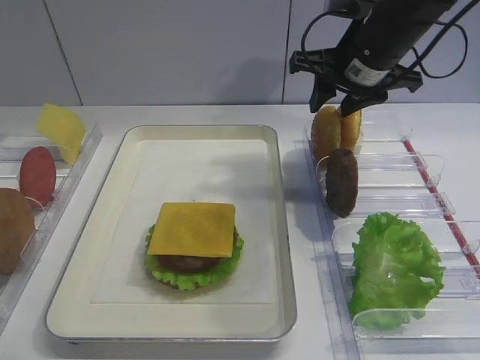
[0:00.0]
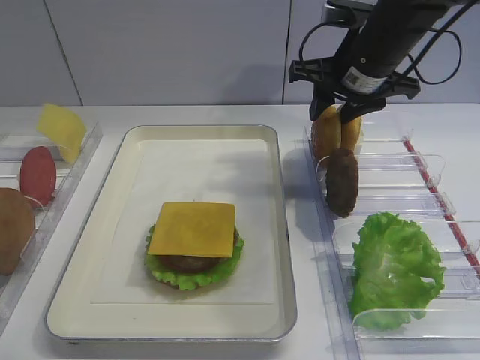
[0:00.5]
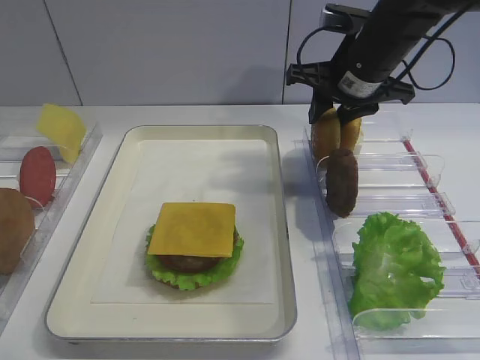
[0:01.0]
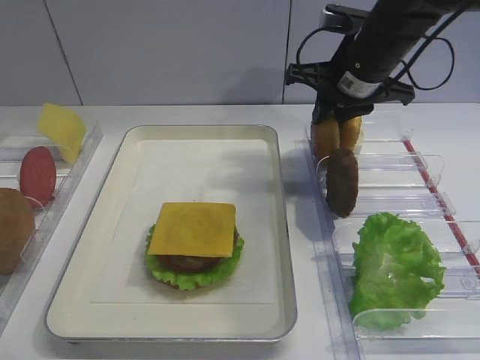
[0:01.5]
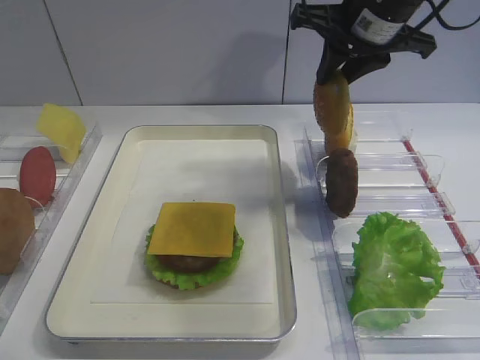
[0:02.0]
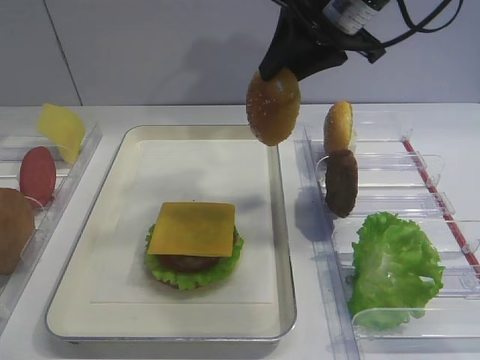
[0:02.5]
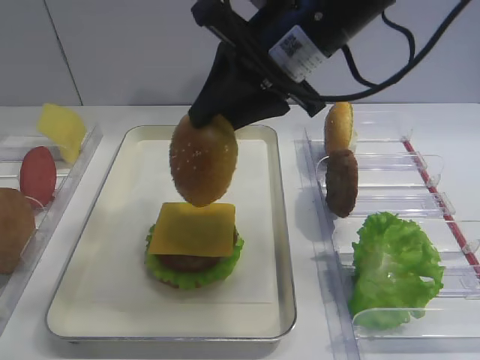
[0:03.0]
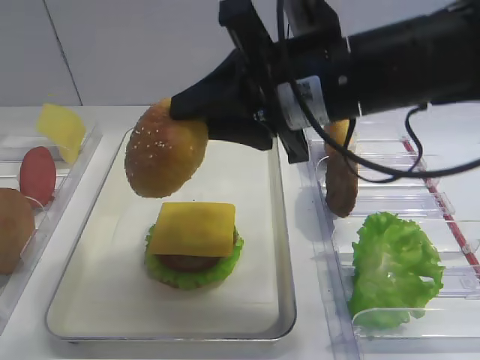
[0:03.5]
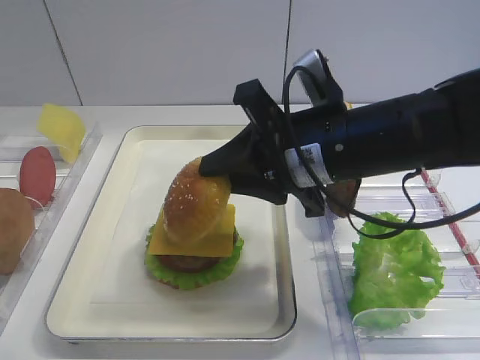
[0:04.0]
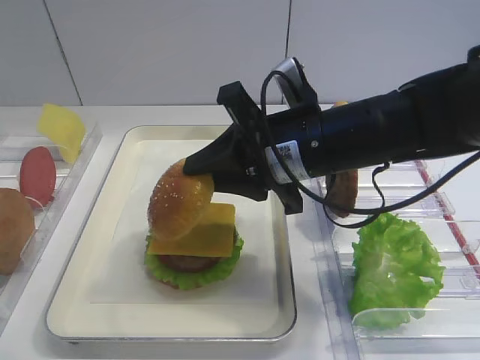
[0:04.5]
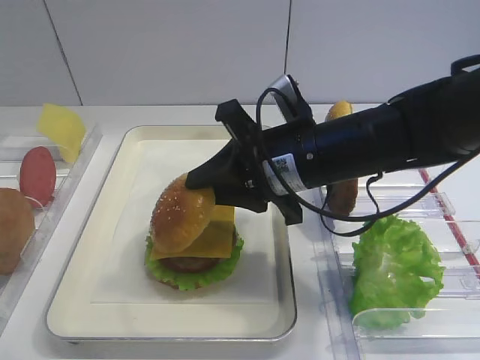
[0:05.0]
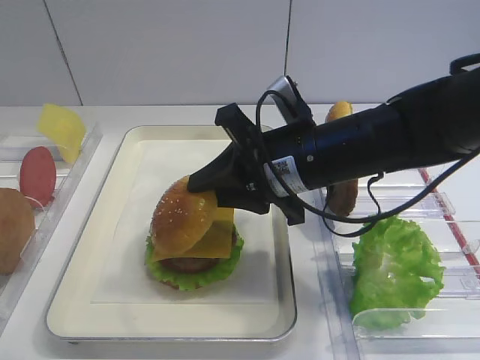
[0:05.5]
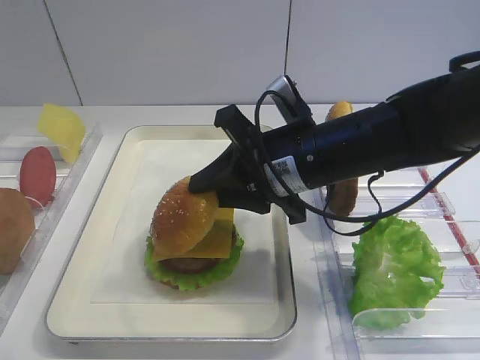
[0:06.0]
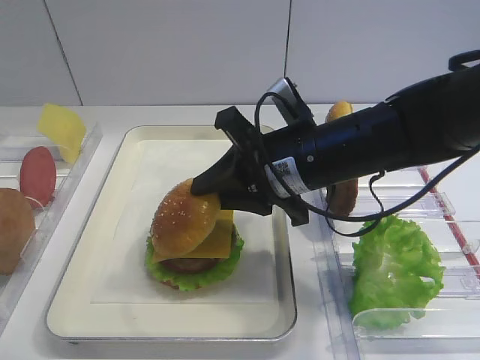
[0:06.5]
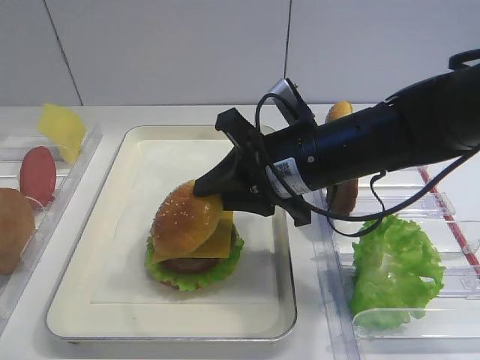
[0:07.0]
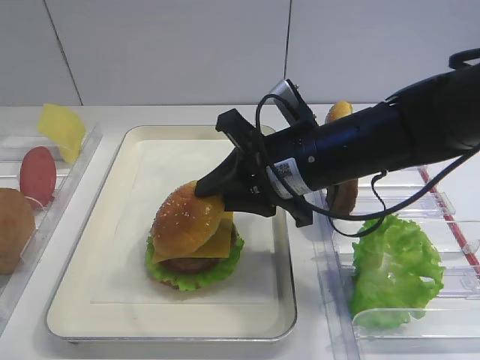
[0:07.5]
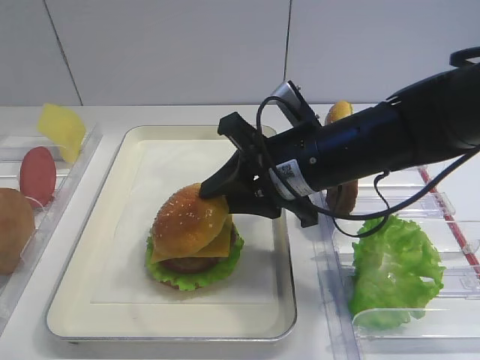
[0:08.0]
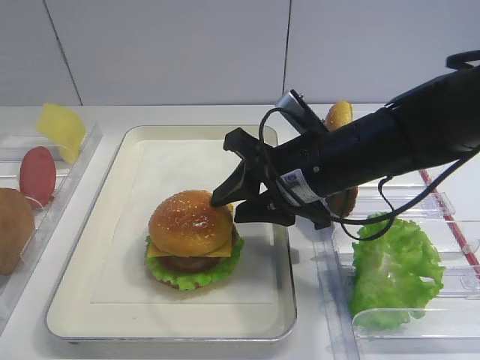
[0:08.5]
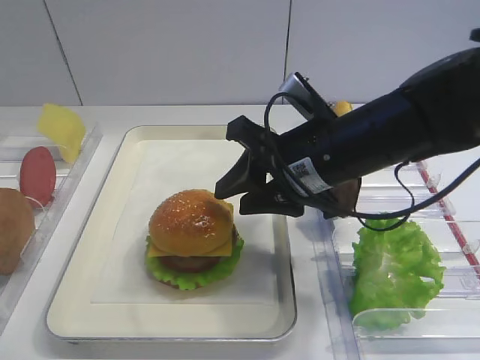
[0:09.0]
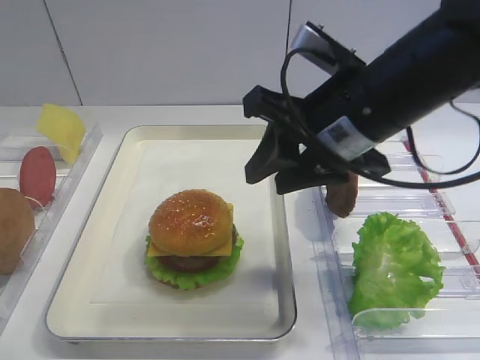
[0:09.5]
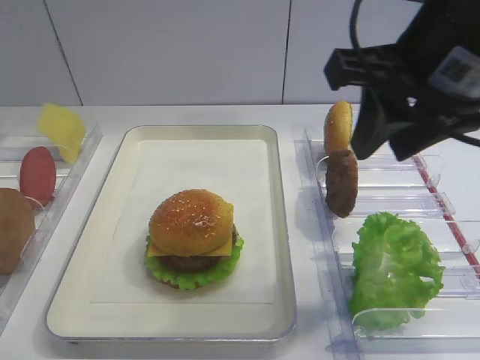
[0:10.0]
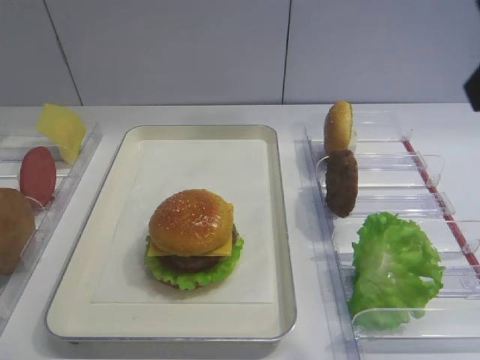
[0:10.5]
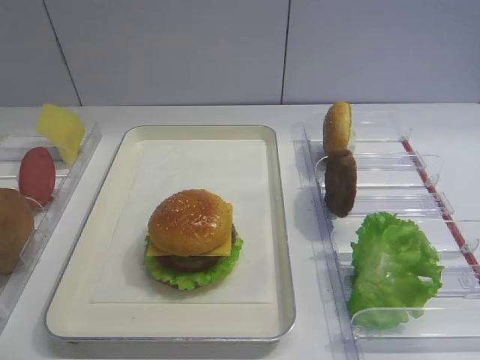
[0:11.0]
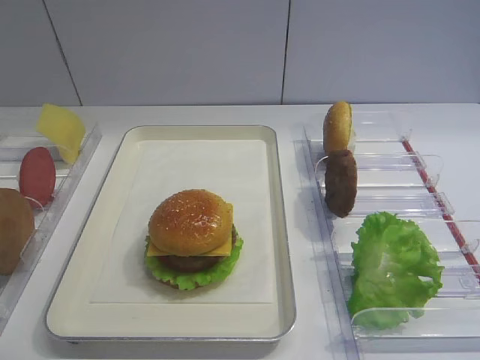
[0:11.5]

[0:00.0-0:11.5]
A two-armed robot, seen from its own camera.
Step, 0:02.0 to 0:09.0: Place the hamburger lid on the cheese slice with the right gripper.
0:00.0 to 0:02.0: The right gripper heads upward, covering roughly 5 cm, and closes up.
0:02.0 to 0:04.0: The right gripper travels backward, downward and to the left by approximately 15 cm.
0:04.0 to 0:06.0: There are only small adjustments of the grippers.
0:06.0 to 0:07.5: Both grippers stay about where they are.
0:07.5 to 0:09.5: The right gripper heads upward, covering roughly 5 cm, and opens up.
0:09.5 to 0:11.5: The right gripper goes about 30 cm backward and to the right.

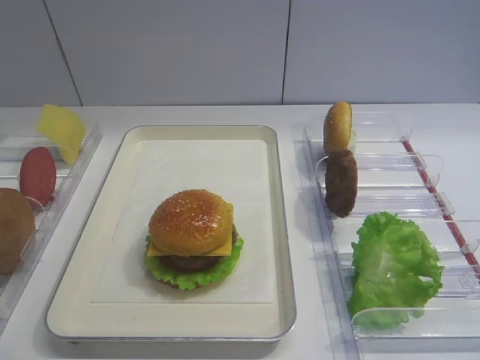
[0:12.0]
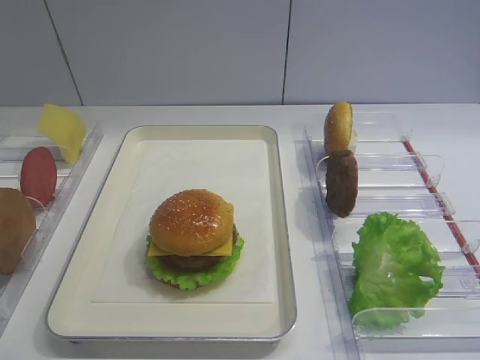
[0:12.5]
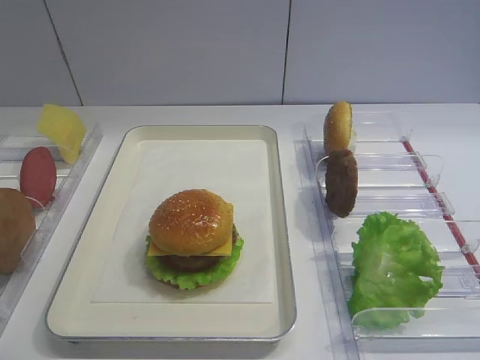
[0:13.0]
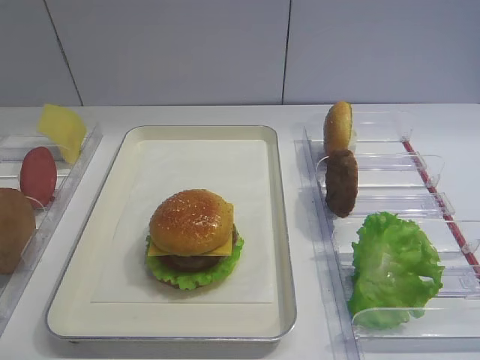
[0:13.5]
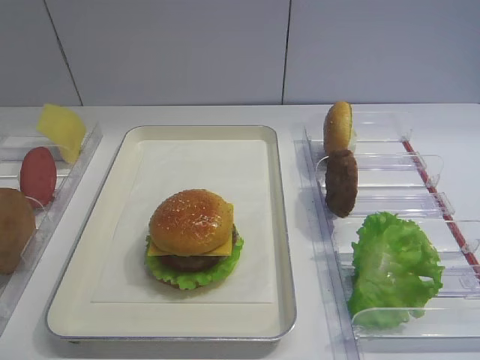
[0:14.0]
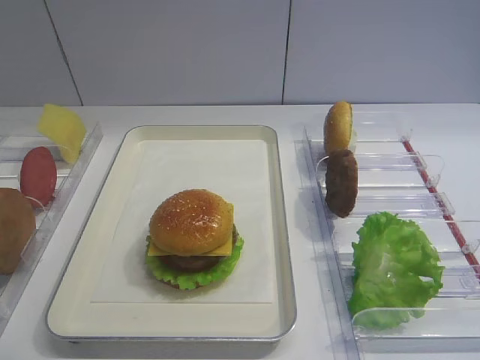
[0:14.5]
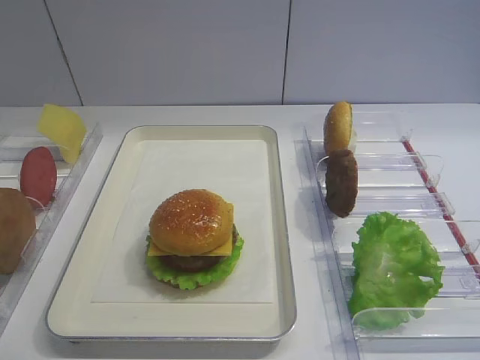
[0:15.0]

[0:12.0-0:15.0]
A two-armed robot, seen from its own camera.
0:12.0 to 0:13.5: Both grippers stay about where they are.

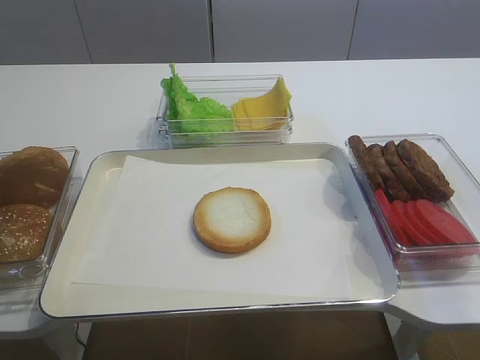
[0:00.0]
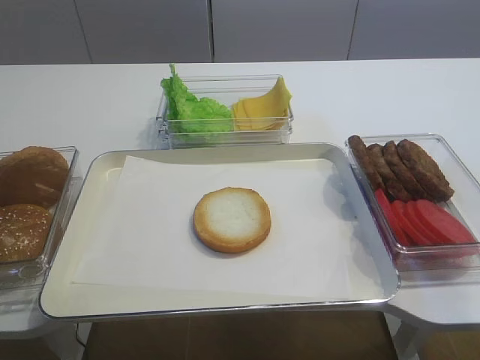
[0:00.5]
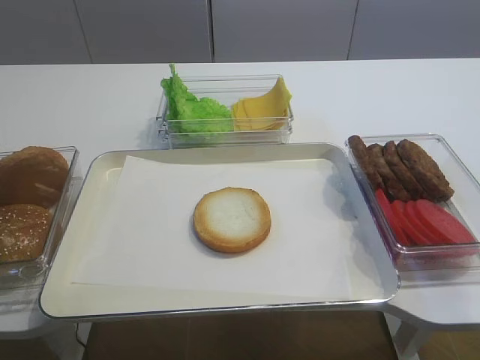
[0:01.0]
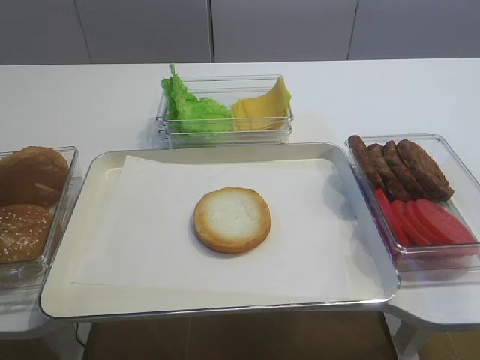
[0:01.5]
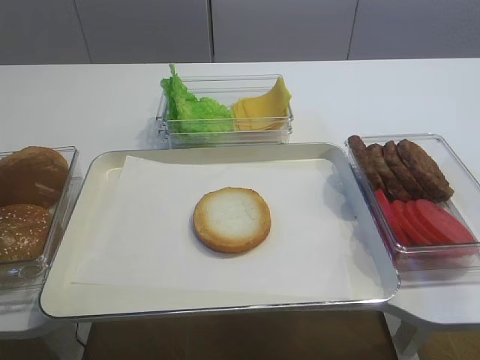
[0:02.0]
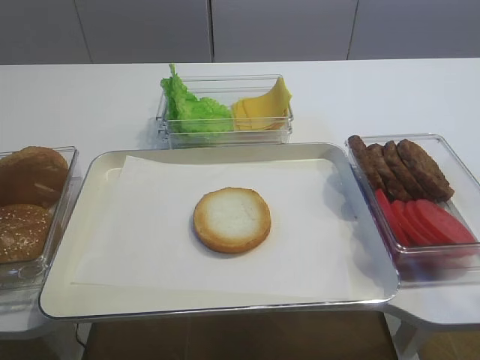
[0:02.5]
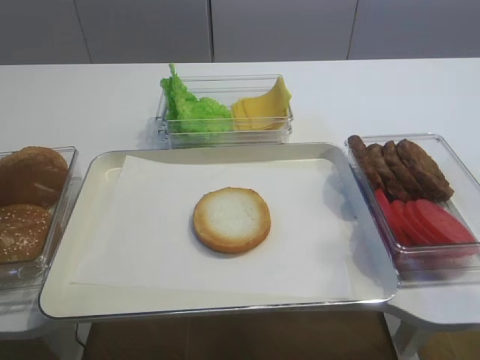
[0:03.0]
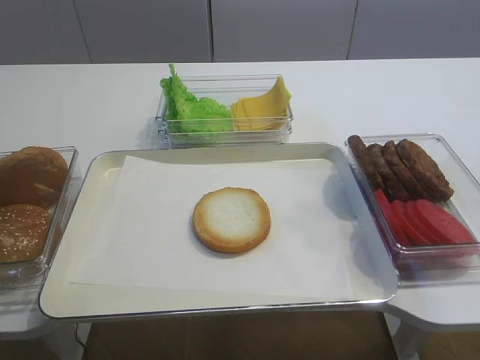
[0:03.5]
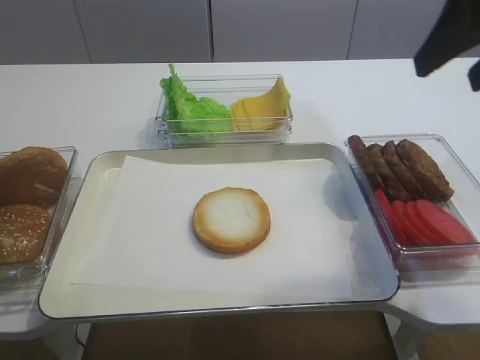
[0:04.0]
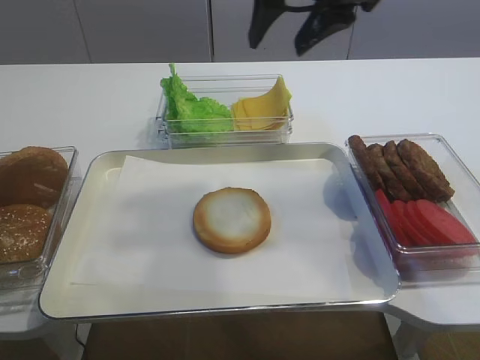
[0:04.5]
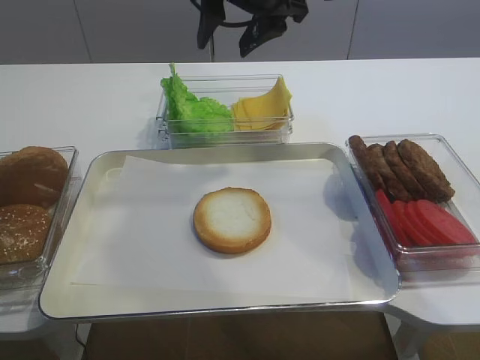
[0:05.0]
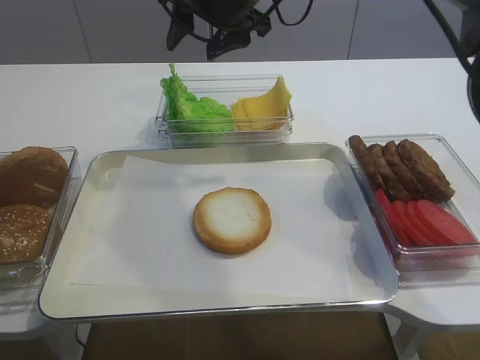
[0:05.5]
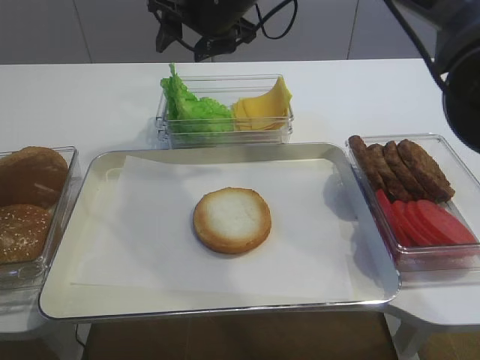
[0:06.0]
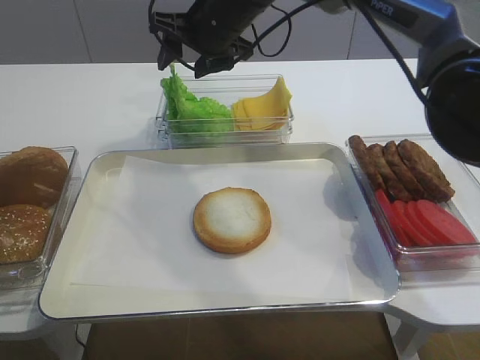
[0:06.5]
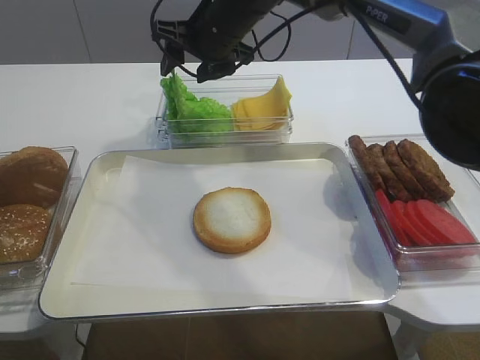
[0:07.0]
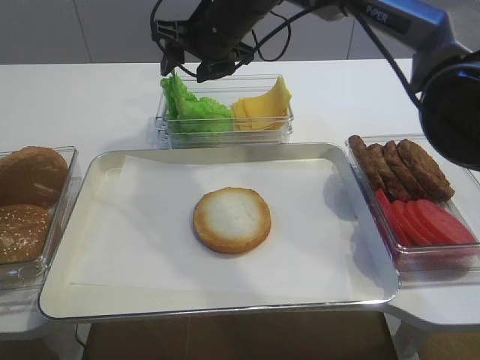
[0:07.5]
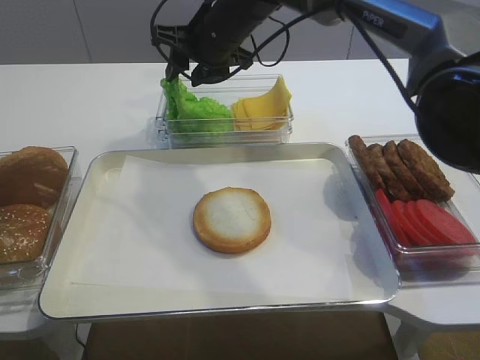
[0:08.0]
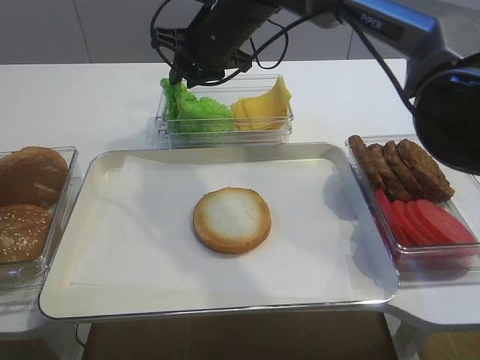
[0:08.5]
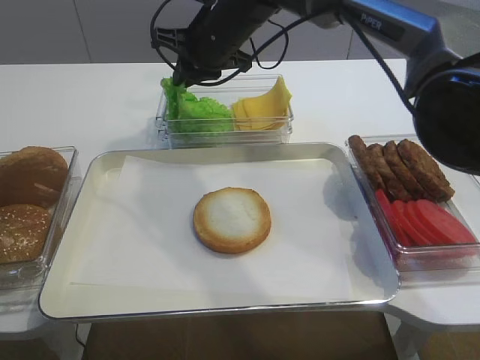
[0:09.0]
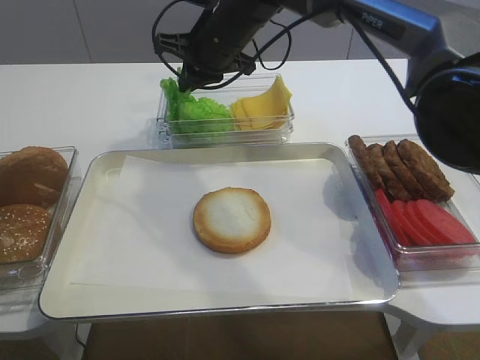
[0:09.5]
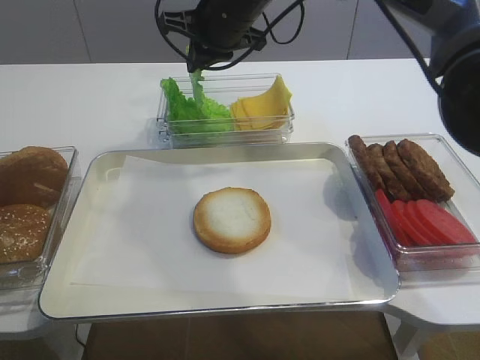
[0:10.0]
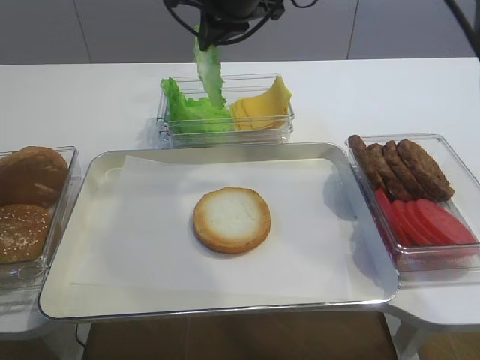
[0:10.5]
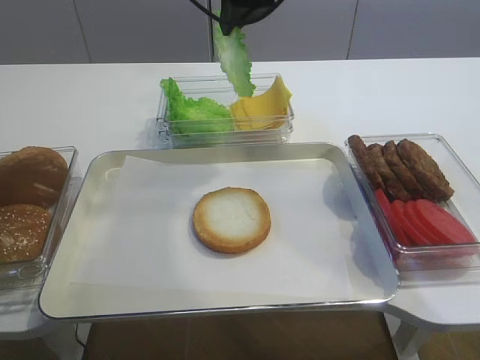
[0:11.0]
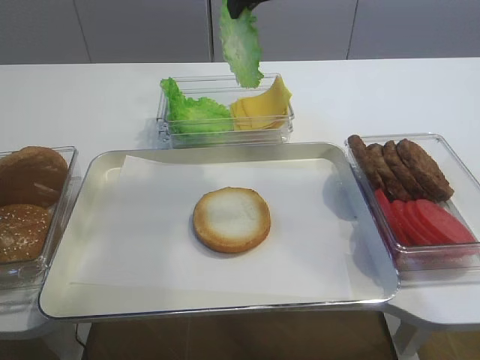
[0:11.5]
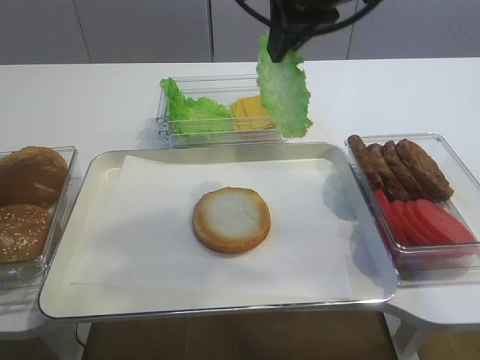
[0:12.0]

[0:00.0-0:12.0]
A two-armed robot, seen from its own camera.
Step, 0:00.0 to 0:10.0: Pick up the lettuce leaf with the right gripper.
0:02.0 to 0:04.0: The right gripper goes approximately 25 cm forward and upward.
0:04.0 to 0:06.0: The right gripper is displaced to the left and forward by some 30 cm.
0:06.0 to 0:08.0: The grippers stay close to where they were, moving slightly.
0:08.0 to 0:10.0: The right gripper closes.
0:10.0 to 0:12.0: The right gripper is displaced backward, upward and to the right by roughly 15 cm.
